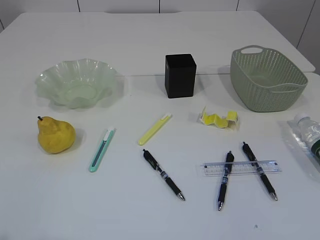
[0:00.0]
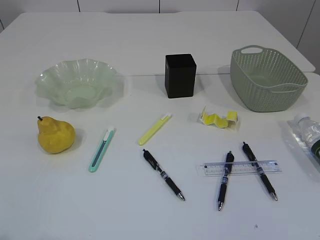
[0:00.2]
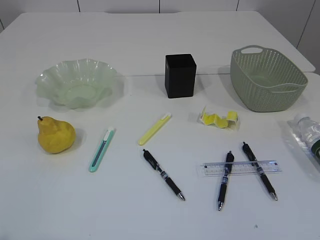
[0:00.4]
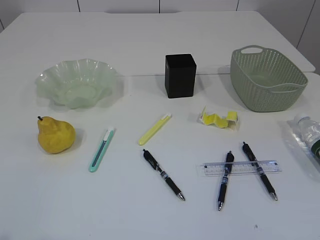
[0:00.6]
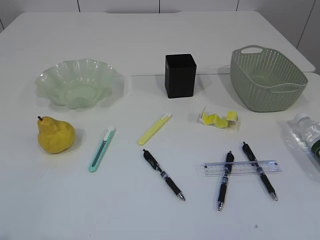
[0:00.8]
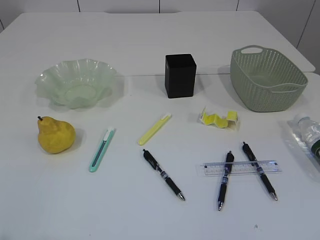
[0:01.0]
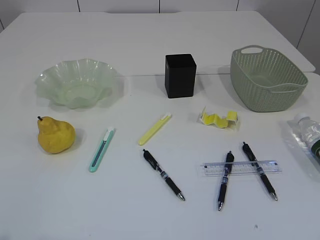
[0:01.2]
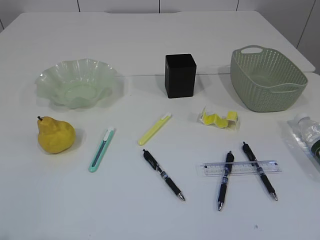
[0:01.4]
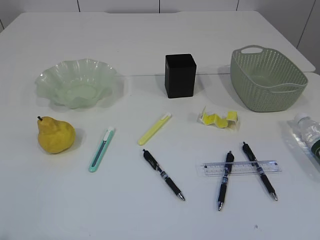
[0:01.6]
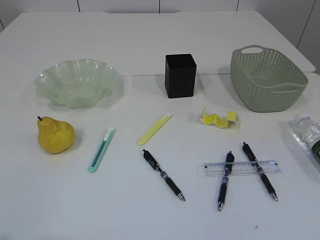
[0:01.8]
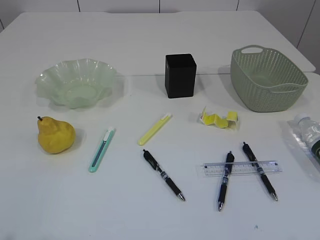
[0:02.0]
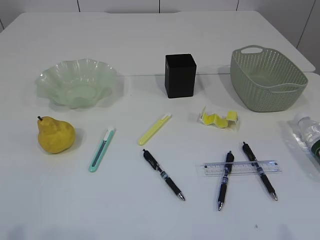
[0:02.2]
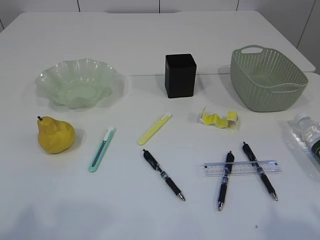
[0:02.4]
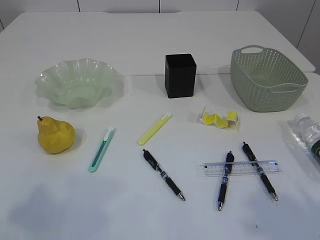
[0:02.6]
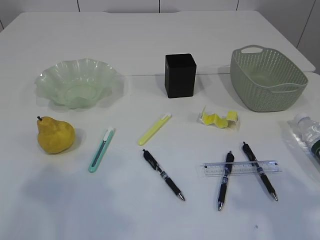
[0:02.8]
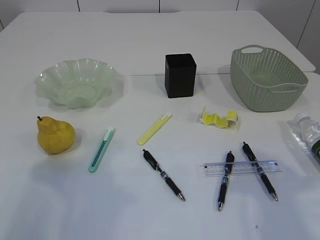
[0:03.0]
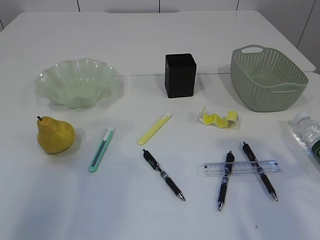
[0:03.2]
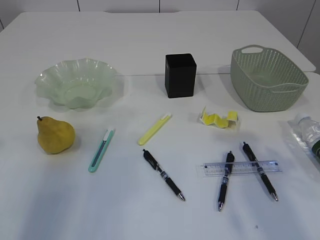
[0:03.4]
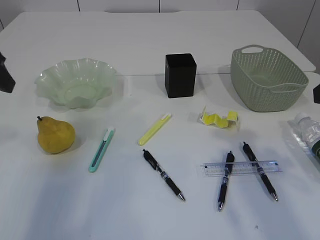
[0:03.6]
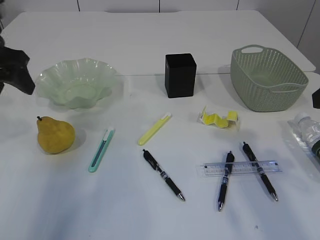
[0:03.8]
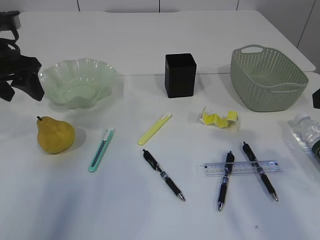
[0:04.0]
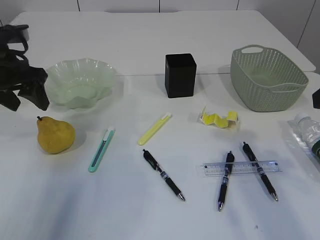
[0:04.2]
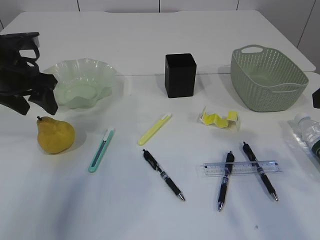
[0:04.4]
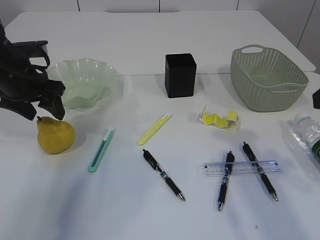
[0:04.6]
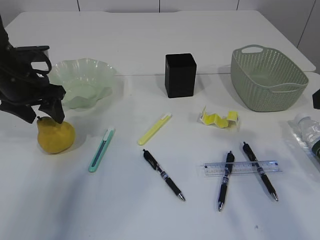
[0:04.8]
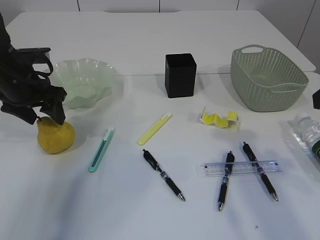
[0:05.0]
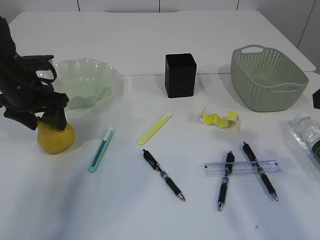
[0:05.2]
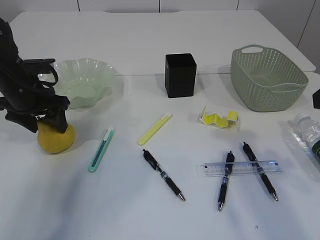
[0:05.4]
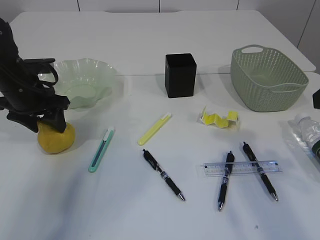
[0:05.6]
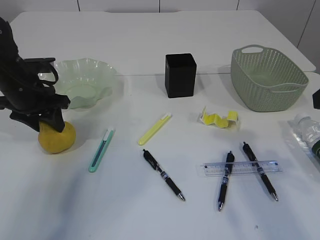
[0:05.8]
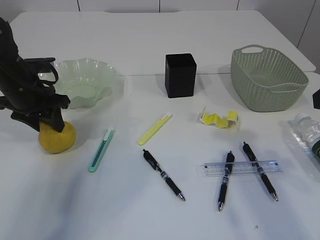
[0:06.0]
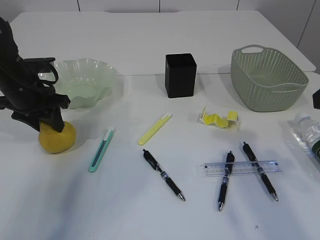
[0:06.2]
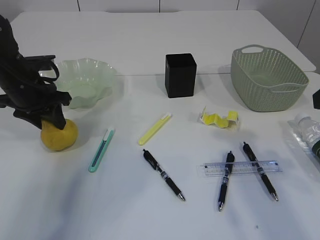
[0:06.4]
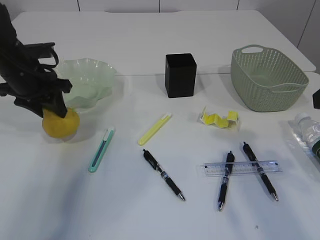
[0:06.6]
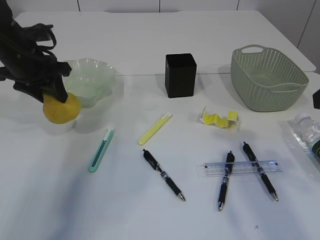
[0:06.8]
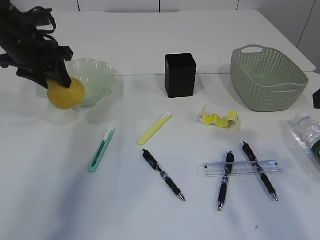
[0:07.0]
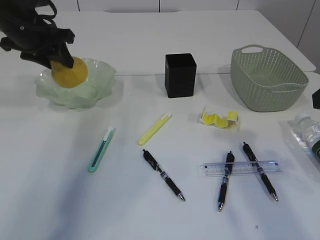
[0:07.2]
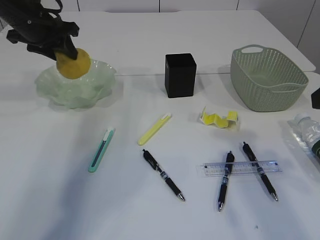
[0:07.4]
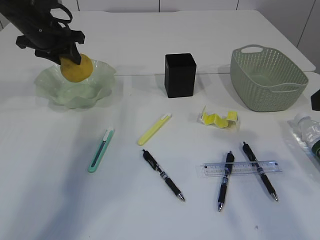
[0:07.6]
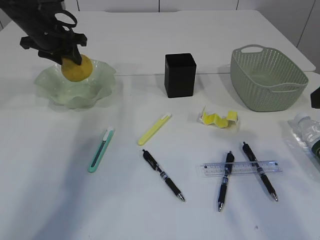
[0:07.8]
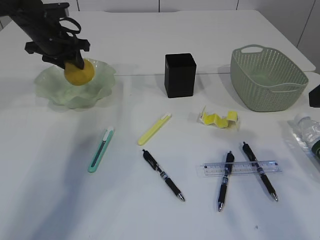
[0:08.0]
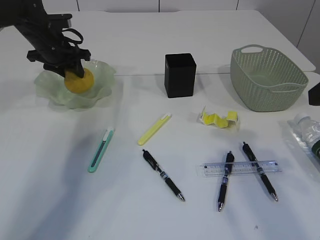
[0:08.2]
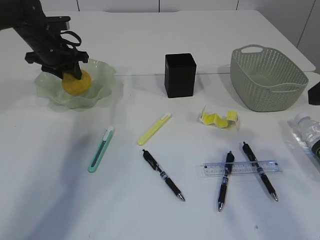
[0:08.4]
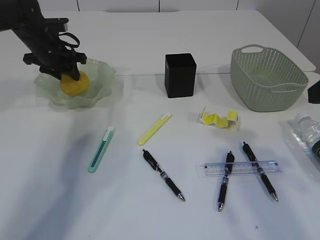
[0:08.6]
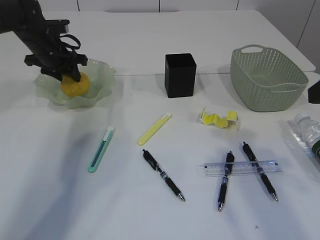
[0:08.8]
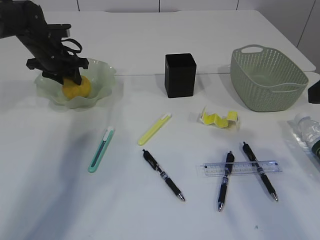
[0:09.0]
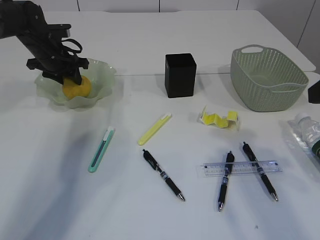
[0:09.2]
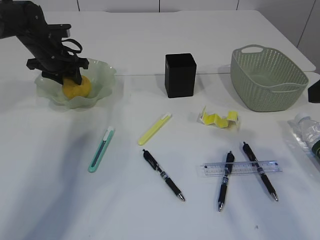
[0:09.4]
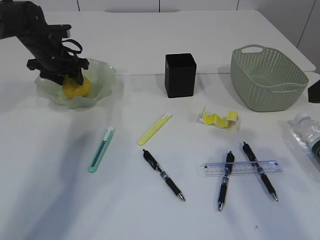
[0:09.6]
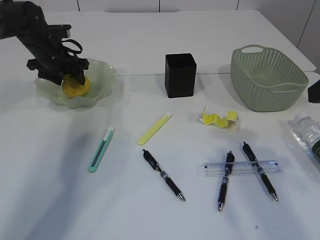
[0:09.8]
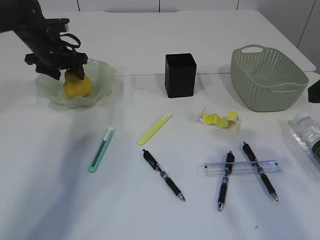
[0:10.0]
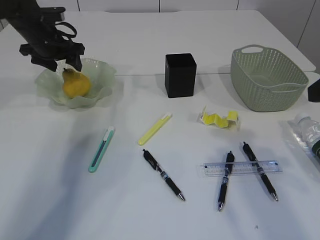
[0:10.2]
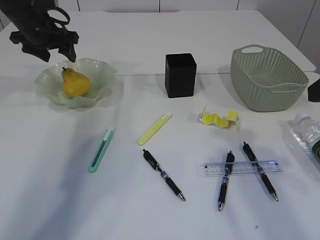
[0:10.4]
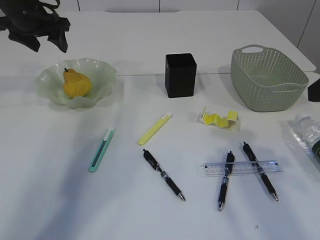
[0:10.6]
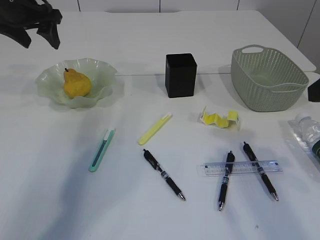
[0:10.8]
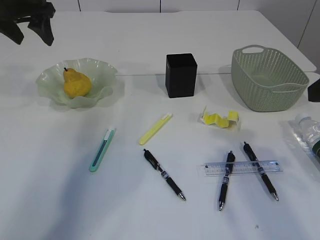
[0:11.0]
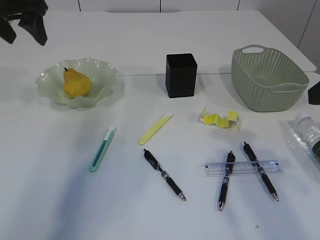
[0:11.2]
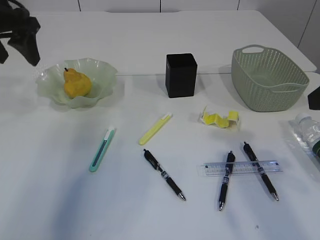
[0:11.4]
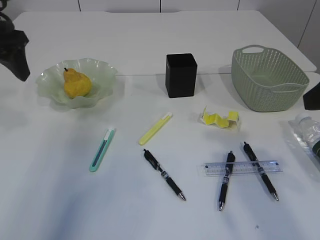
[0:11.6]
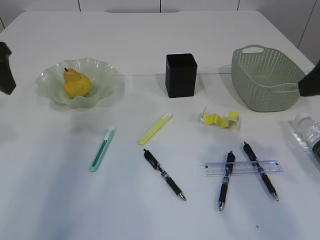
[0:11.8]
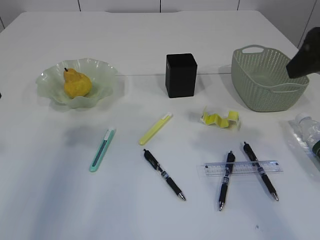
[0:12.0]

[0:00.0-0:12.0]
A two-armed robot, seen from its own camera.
Step, 0:06.8 to 0:10.4: Place the pear in the plate.
0:01.6 to 0:03.0: The two grippers go some 15 cm forward.
0:03.0 to 0:04.4: The left gripper goes some 25 cm forward and downward.
0:04.4 to 0:06.0: The left gripper shifts approximately 5 cm downward, and closes.
0:06.0 to 0:07.6: The left gripper shifts approximately 10 cm forward and upward.
0:07.6 to 0:09.0: The left gripper heads downward, covering about 5 cm.
0:09.0 to 0:10.4: The left gripper heads upward, covering about 5 cm, and opens up.
0:10.4 to 0:12.0: The left gripper heads backward, covering some 25 cm. The right gripper goes about 5 cm forward.

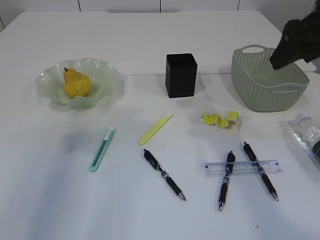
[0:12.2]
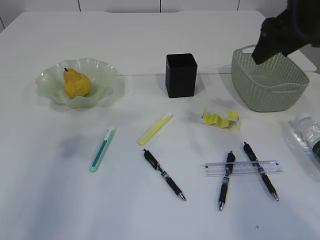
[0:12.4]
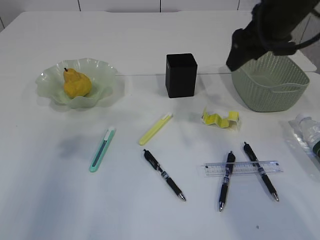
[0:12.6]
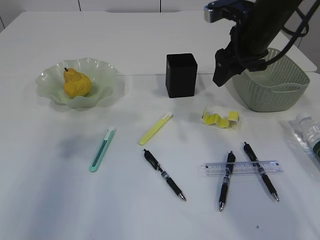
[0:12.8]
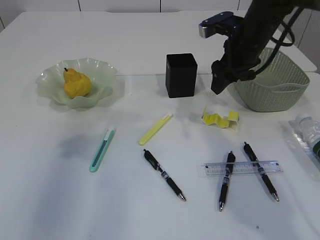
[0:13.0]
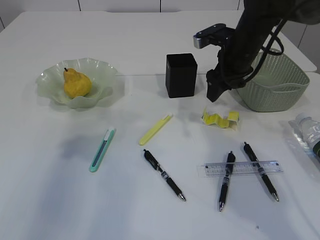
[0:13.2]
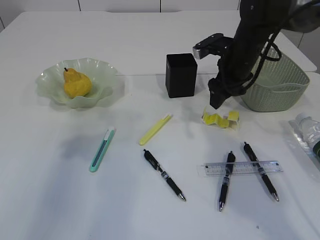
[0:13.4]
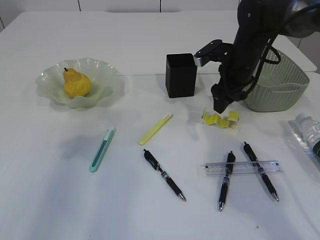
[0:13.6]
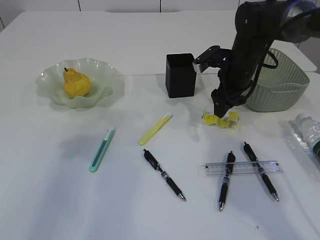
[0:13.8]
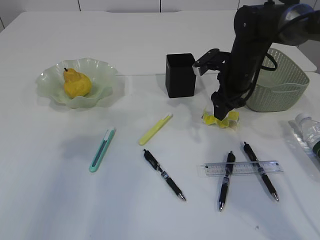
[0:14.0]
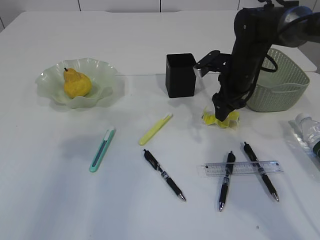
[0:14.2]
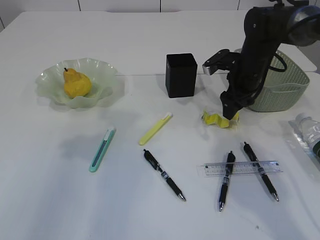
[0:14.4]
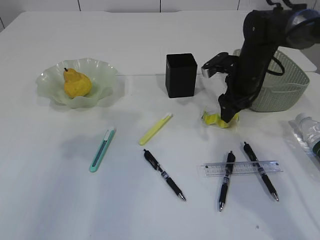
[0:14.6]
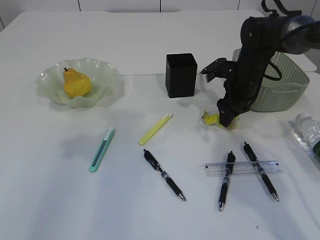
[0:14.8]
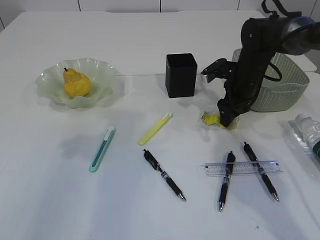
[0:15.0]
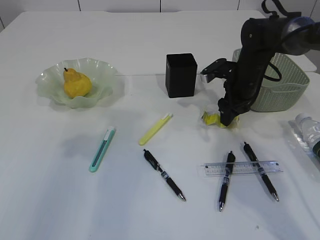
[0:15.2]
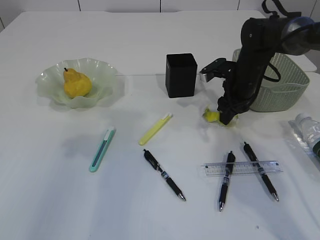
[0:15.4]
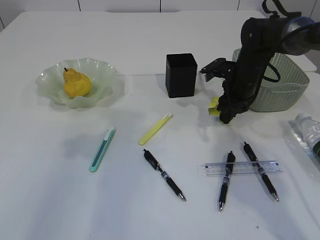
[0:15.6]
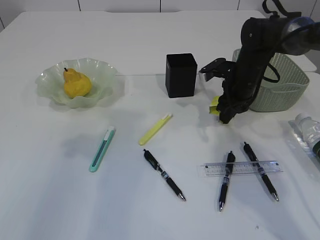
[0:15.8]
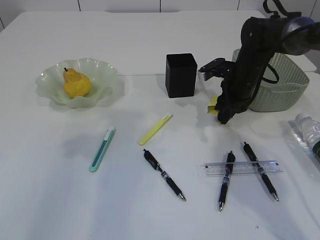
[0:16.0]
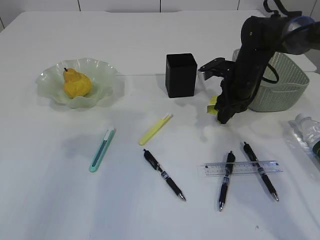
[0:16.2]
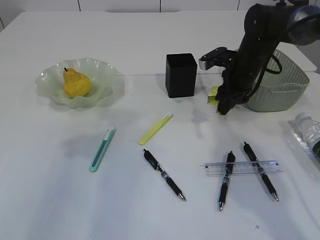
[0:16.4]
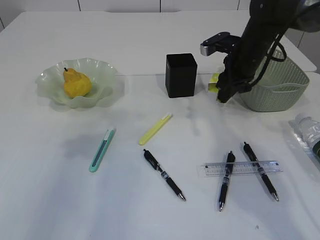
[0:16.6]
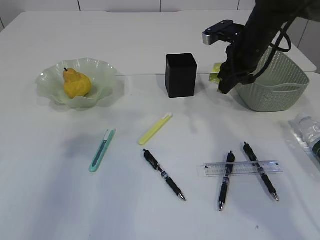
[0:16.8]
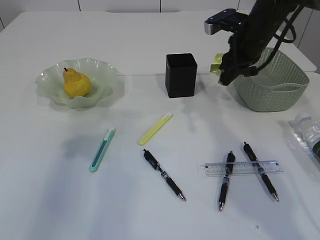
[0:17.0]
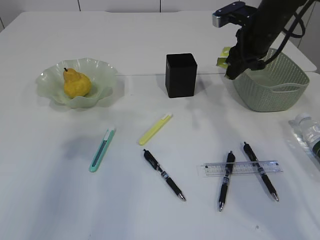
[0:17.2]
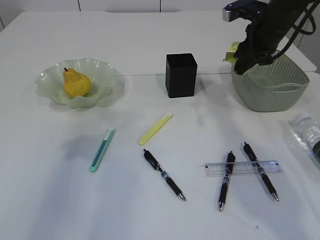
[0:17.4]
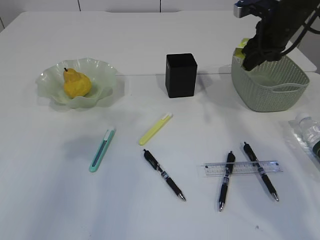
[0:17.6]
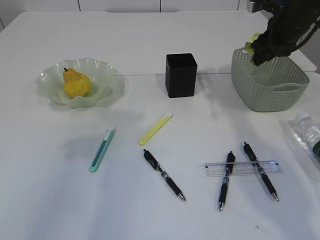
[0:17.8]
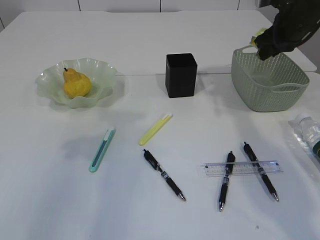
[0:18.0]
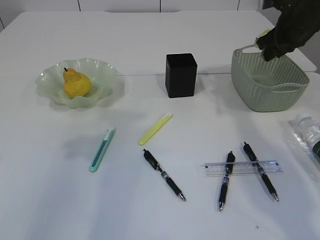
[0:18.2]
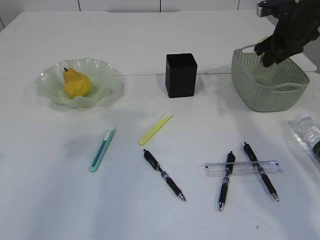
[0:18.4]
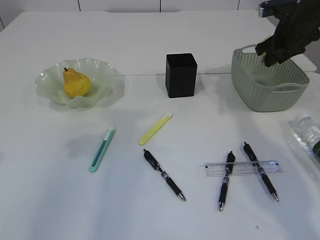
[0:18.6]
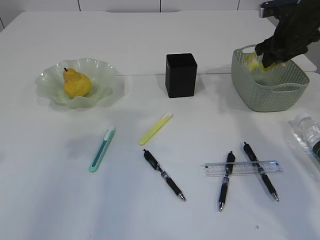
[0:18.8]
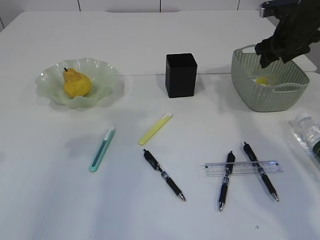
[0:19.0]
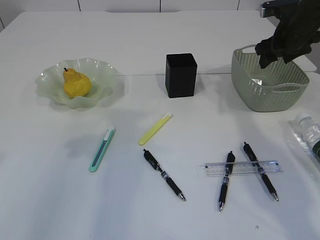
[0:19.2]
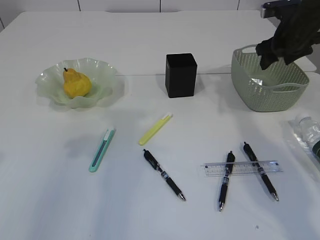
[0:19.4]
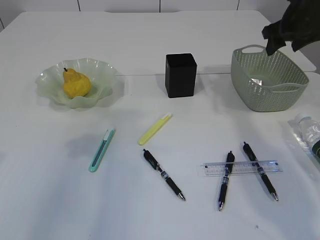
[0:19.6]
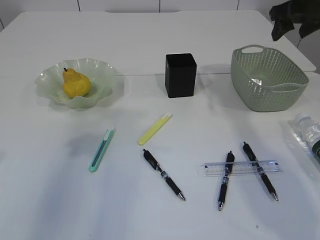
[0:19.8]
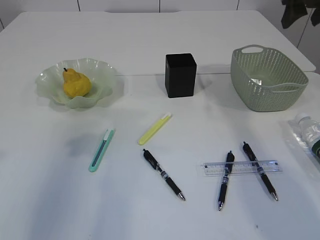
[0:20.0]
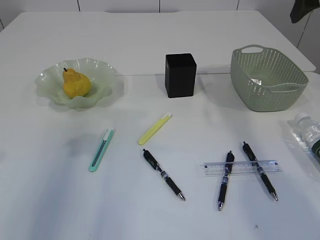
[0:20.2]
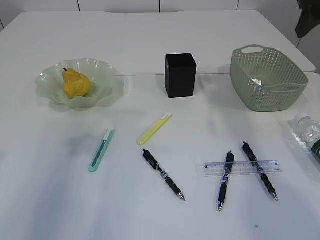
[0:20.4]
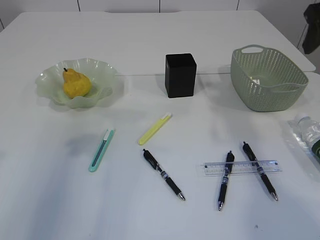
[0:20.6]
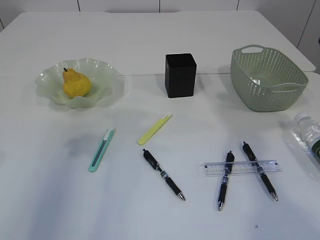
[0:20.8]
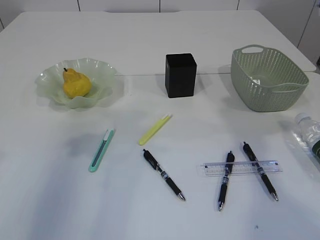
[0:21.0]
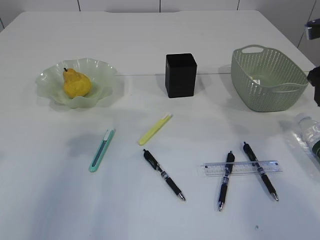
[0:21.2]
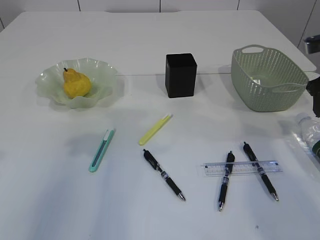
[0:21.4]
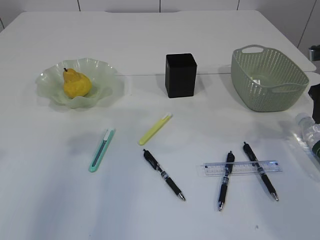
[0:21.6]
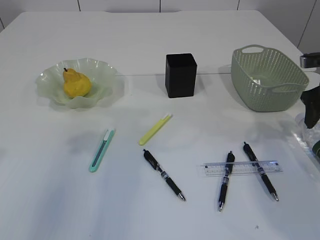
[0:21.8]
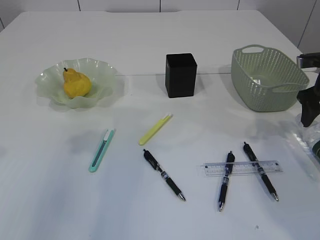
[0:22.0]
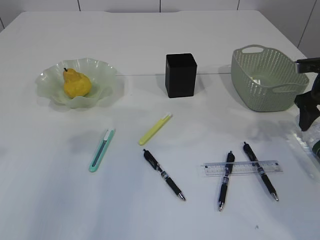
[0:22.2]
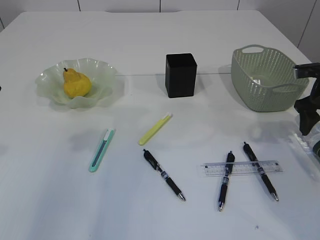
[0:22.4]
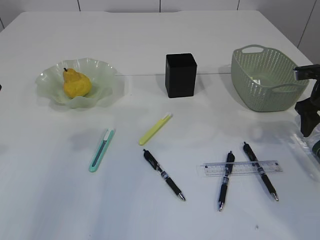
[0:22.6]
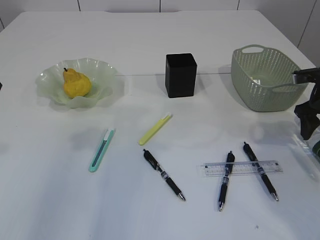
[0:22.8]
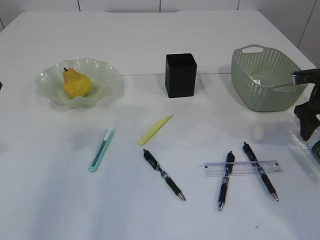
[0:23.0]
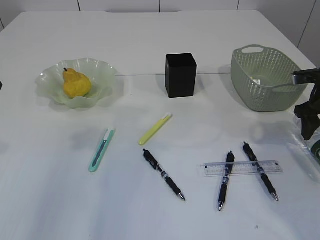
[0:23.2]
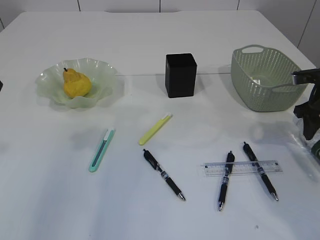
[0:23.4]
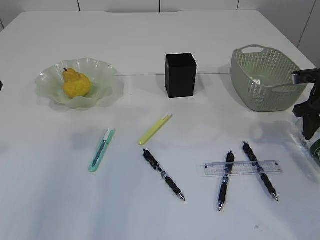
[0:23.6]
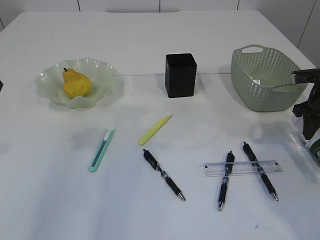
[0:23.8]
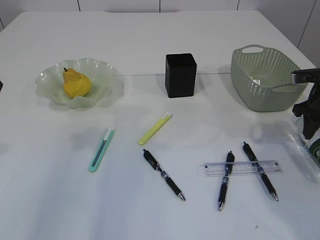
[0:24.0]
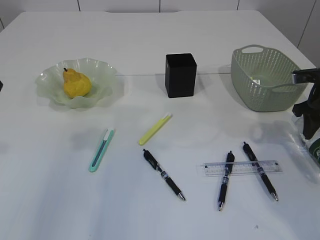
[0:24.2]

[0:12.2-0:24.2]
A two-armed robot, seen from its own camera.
Step, 0:12.2 to 0:16.4: Pick up the waste paper.
Step, 0:16.6 to 0:19.4: Place the waste paper in the basket.
0:12.2 to 0:13.8: The right gripper heads downward and forward, covering approximately 25 cm.
0:13.8 to 0:15.2: The grippers make only small movements.
0:15.2 to 0:16.6: The right gripper moves upward, about 5 cm, and closes up.
0:16.6 to 0:18.2: The right gripper goes roughly 10 cm to the right and upward.
0:18.2 to 0:19.8: The right gripper is displaced upward by some 5 cm, and opens.
0:19.8 to 0:21.2: The right gripper travels backward and downward by roughly 10 cm.
0:21.2 to 0:22.6: The right gripper goes about 10 cm downward.
0:22.6 to 0:24.2: The right gripper closes.
